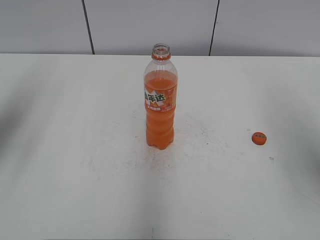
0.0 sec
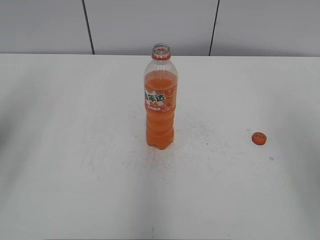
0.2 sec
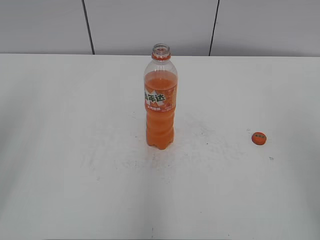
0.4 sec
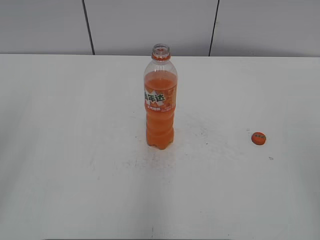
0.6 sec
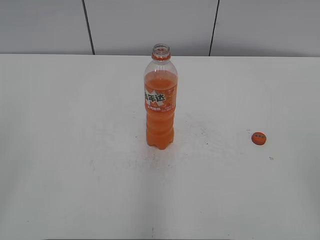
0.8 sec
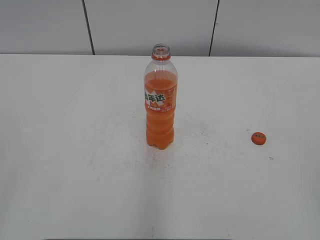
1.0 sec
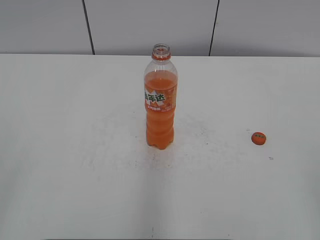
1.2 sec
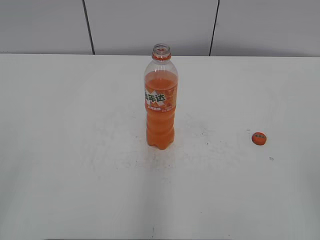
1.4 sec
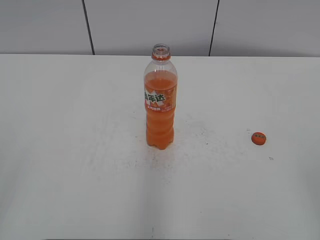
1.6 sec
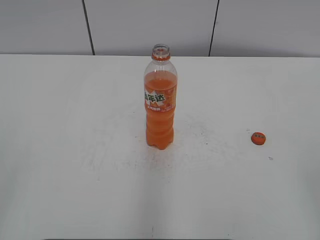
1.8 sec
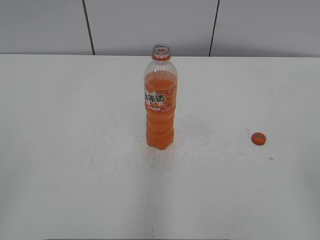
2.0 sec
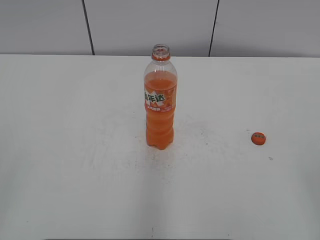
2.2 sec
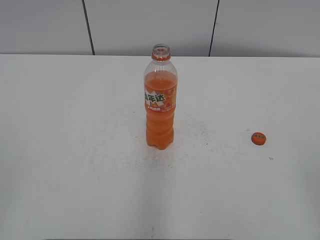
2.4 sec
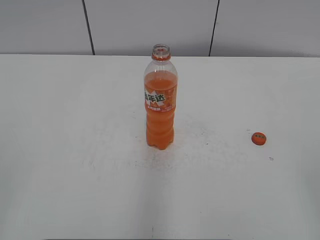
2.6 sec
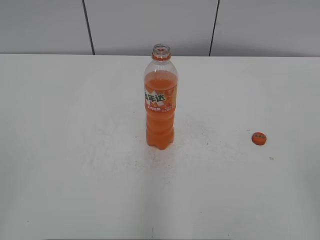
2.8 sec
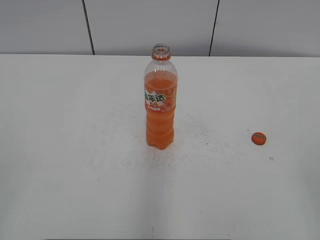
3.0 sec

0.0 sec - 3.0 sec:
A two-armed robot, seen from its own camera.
0.0 sec - 1.6 sec: The left gripper travels backward by about 30 cm.

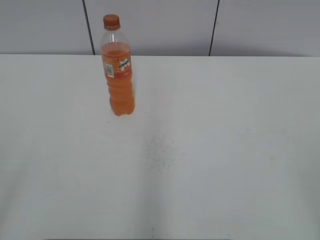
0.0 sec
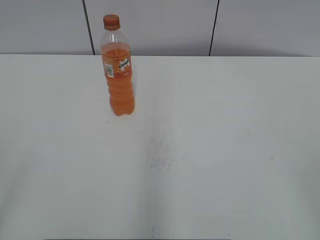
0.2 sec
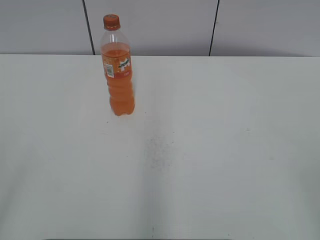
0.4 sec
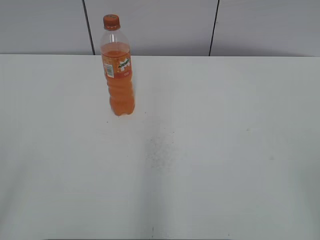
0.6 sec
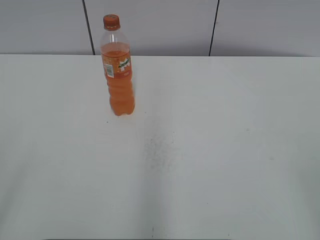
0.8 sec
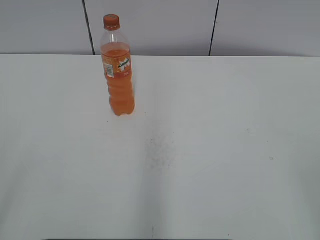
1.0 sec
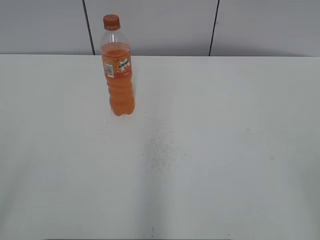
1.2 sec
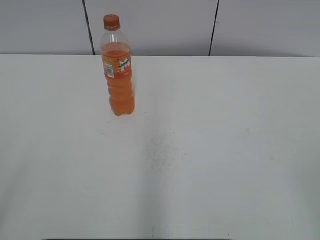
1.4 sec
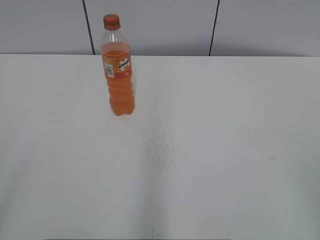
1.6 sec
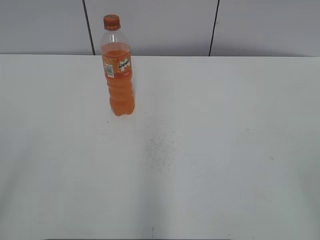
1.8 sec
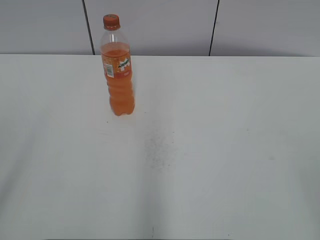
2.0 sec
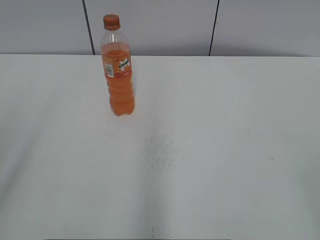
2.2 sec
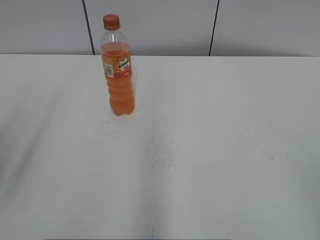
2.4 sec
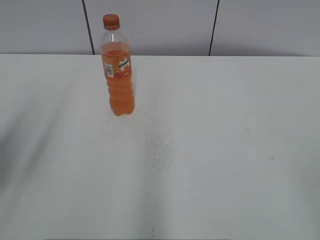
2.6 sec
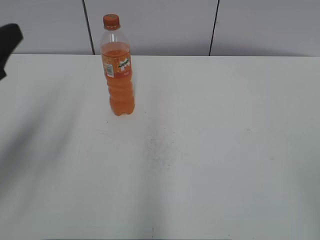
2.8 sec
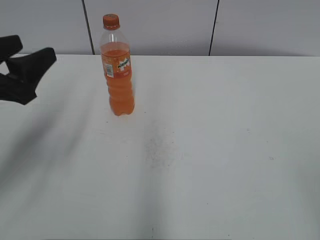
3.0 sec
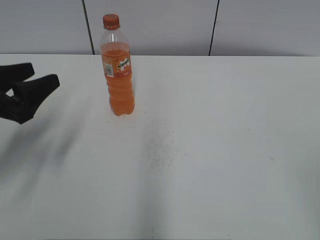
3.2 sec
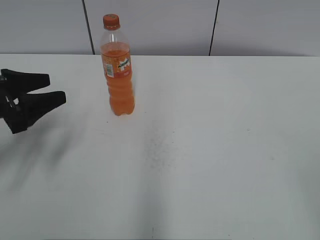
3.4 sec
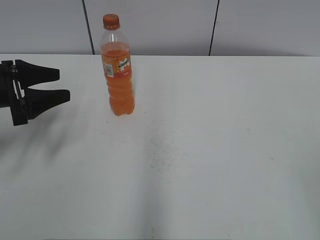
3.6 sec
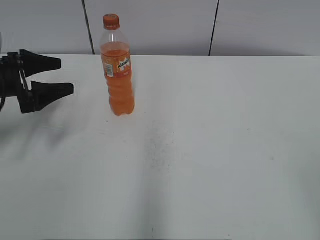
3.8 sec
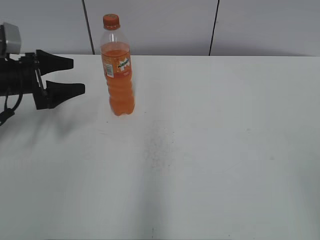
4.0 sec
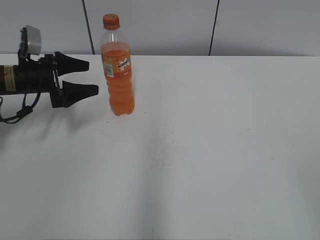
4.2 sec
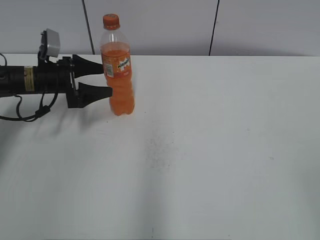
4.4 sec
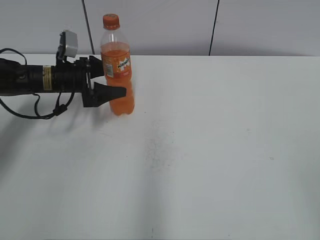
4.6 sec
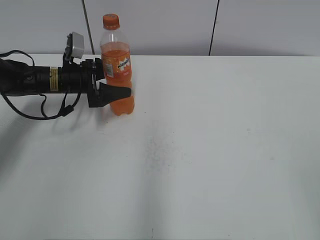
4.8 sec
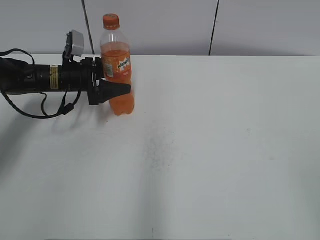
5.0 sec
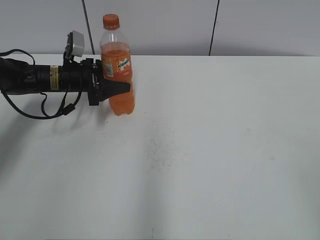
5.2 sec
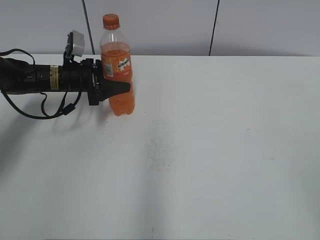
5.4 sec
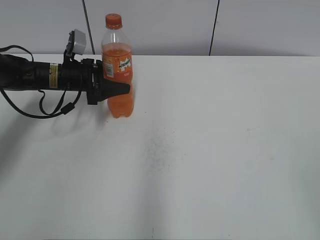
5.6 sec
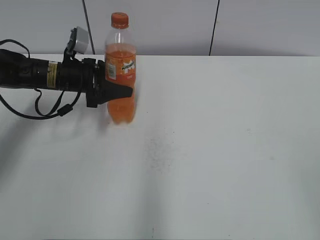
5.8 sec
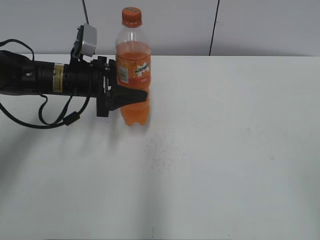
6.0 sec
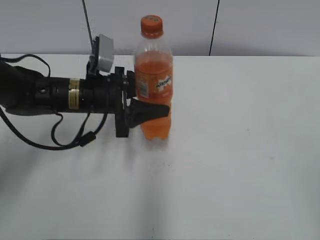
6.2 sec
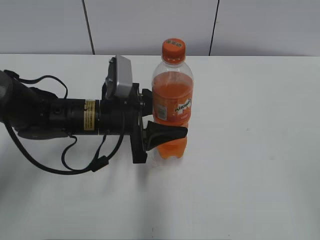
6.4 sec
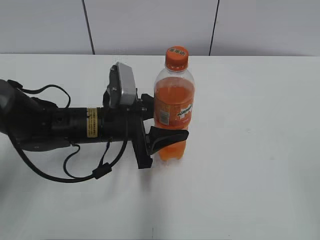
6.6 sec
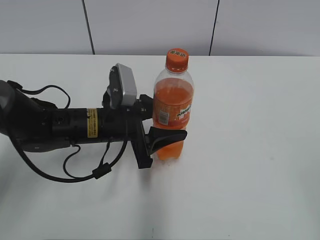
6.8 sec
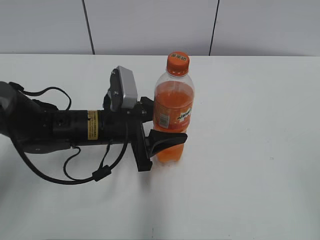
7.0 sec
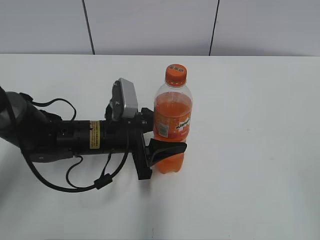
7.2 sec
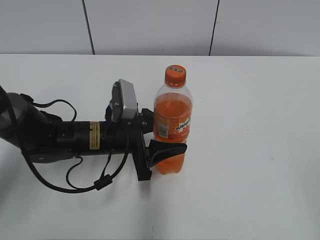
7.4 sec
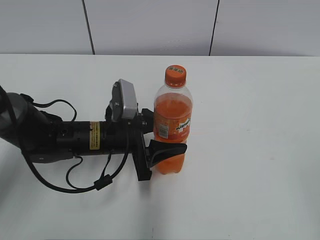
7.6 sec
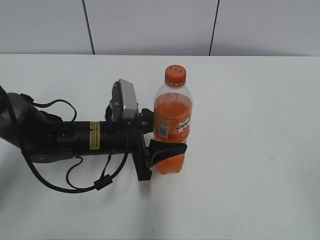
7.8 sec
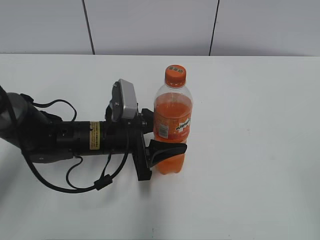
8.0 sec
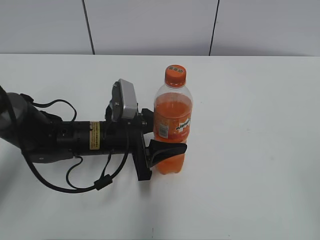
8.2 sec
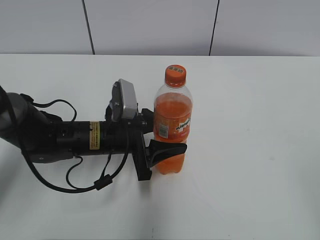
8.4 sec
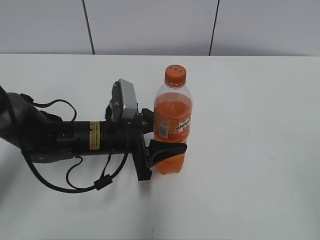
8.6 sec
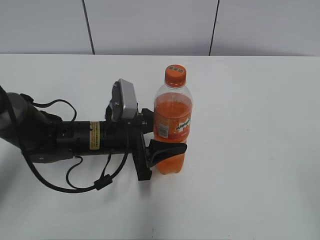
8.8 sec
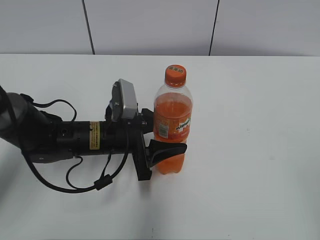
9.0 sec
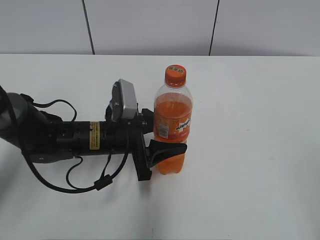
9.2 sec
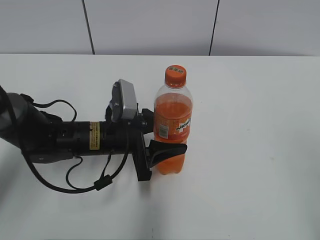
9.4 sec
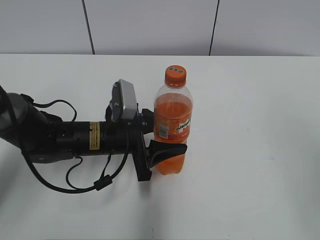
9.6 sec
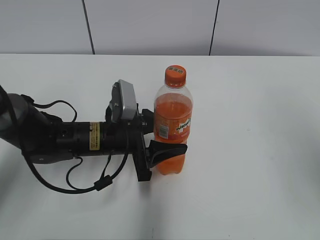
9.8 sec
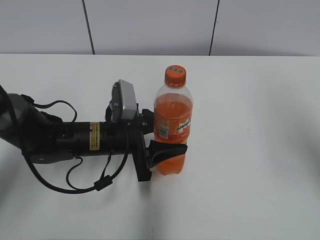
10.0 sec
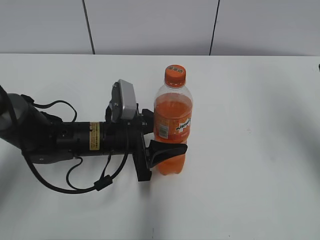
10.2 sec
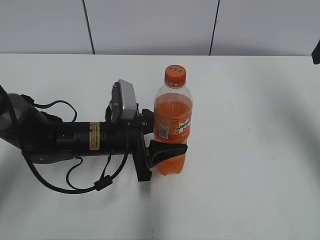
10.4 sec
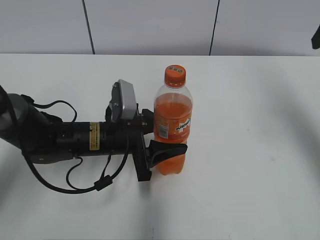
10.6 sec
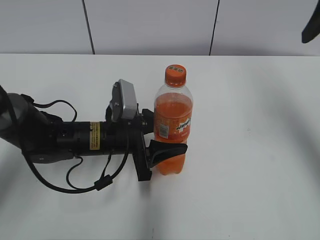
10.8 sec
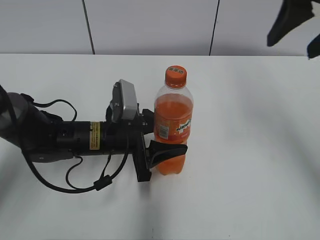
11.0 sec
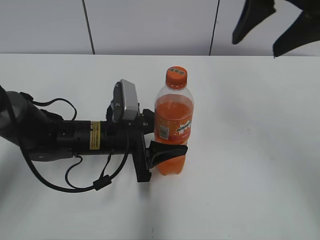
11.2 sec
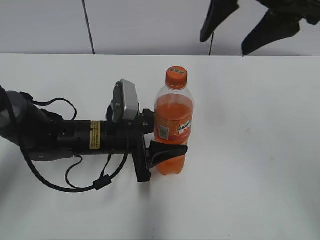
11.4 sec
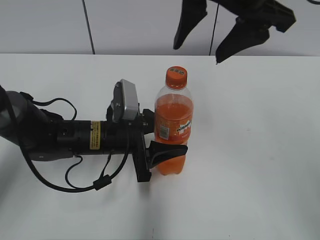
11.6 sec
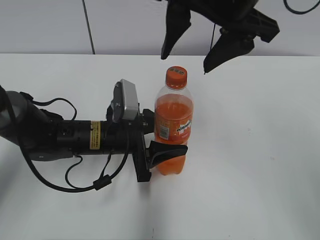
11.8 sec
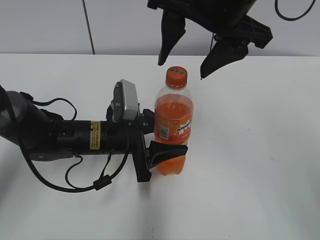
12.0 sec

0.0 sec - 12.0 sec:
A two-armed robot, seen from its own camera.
Step, 0.0 sec - 5.0 sec: Grab the Mirinda with the left hand.
Step, 5.2 sec - 7.8 sec: Move the Mirinda from left to right.
1.6 sec - 3.0 sec: The left gripper heads forward, covering about 25 cm.
3.0 sec - 4.4 sec: The left gripper heads forward and downward, covering about 25 cm, and opens its fingers.
4.4 sec - 6.0 sec: The left gripper is displaced to the right by roughly 10 cm, and closes up.
6.0 sec - 7.6 sec: The left gripper is displaced backward, to the right and downward by about 15 cm.
7.6 sec - 9.0 sec: Both grippers stay about where they are.
9.0 sec - 10.4 sec: The right gripper is displaced forward by some 30 cm.
10.4 sec - 12.0 sec: The right gripper travels to the left by about 20 cm.

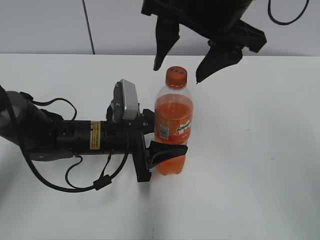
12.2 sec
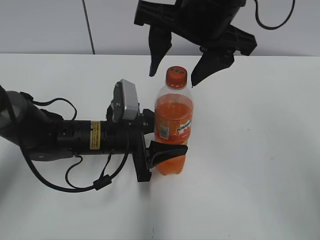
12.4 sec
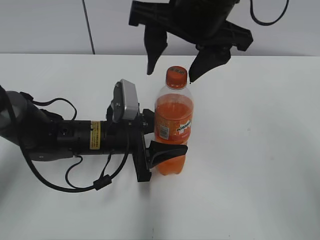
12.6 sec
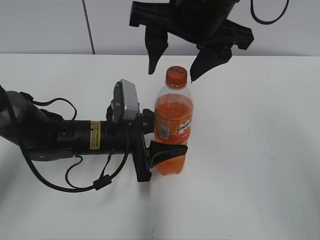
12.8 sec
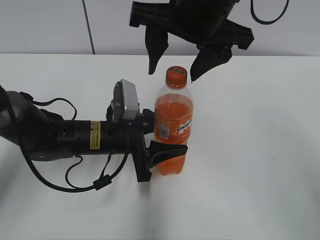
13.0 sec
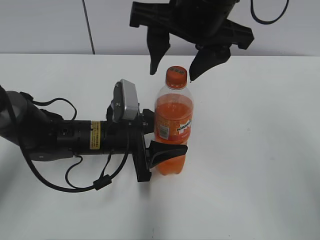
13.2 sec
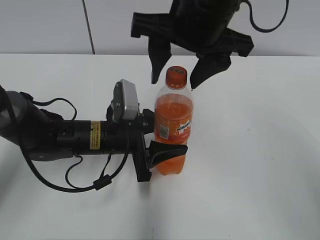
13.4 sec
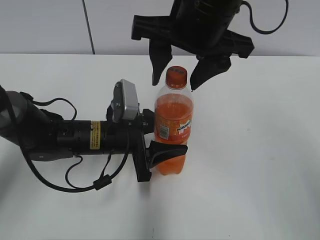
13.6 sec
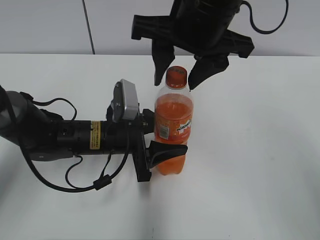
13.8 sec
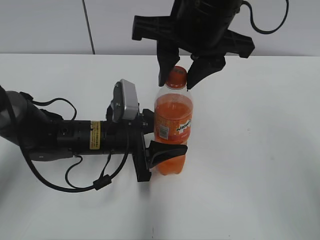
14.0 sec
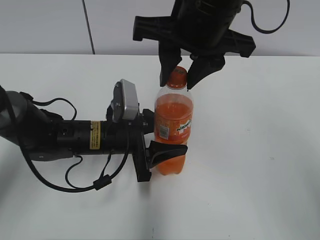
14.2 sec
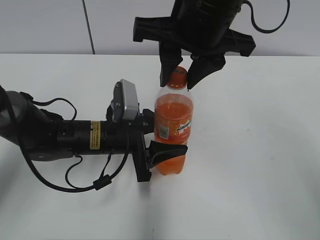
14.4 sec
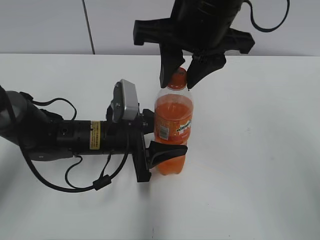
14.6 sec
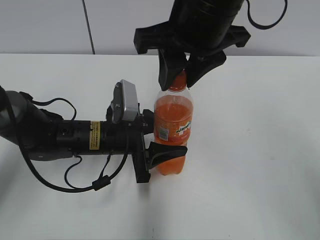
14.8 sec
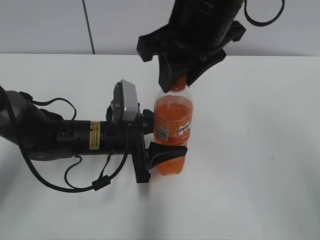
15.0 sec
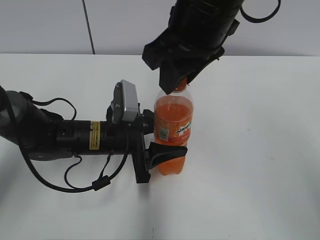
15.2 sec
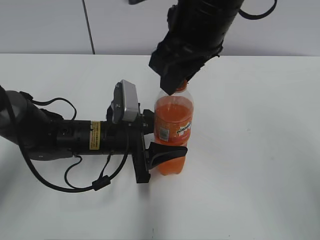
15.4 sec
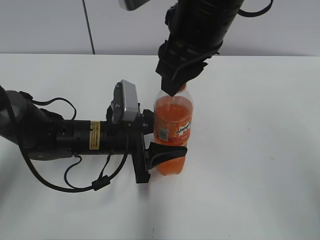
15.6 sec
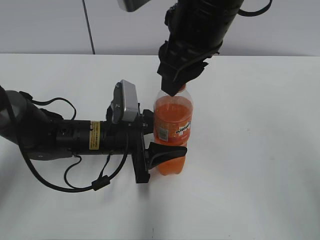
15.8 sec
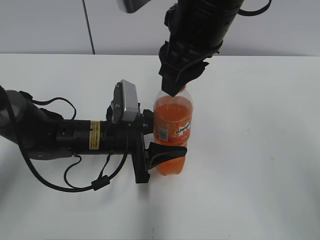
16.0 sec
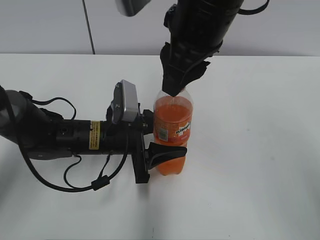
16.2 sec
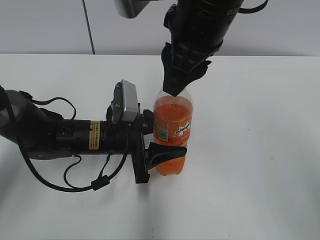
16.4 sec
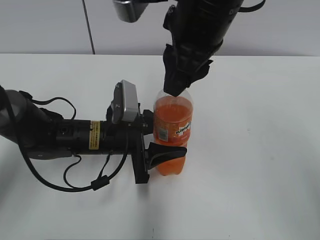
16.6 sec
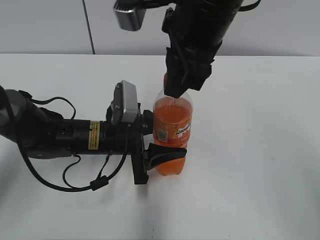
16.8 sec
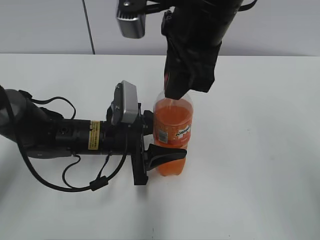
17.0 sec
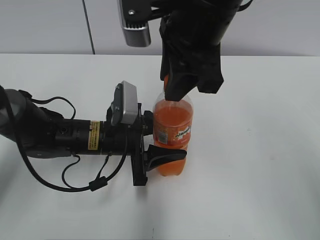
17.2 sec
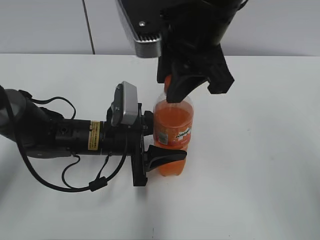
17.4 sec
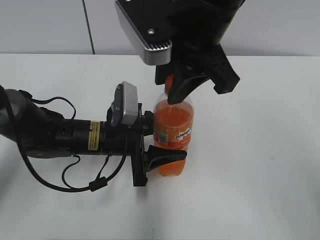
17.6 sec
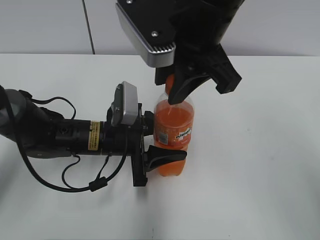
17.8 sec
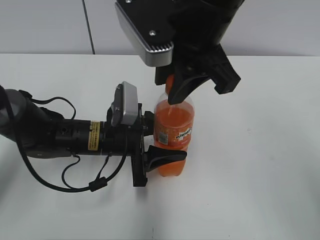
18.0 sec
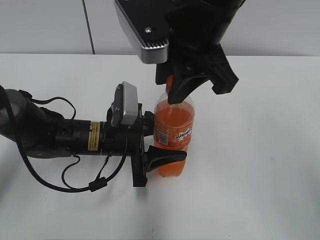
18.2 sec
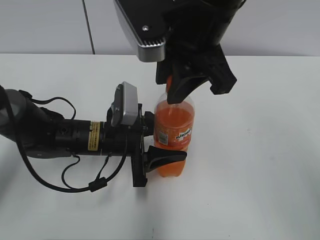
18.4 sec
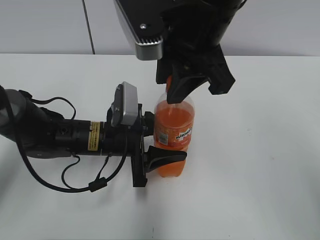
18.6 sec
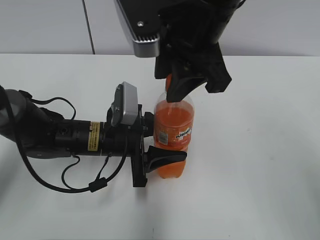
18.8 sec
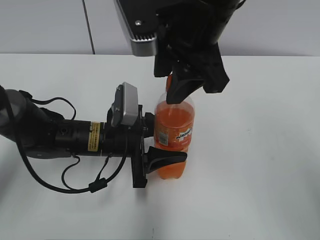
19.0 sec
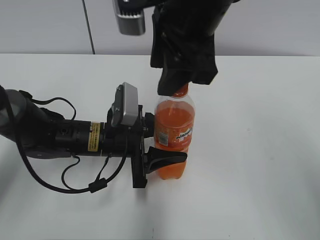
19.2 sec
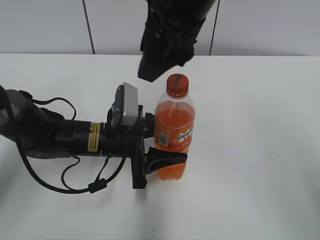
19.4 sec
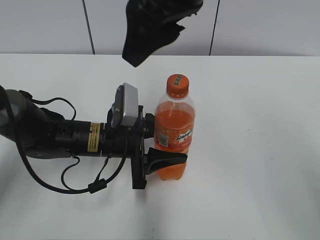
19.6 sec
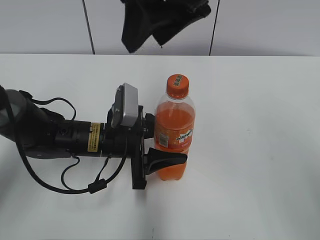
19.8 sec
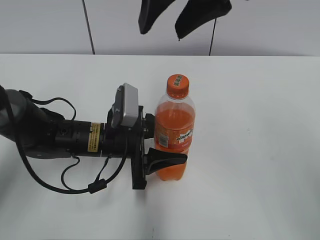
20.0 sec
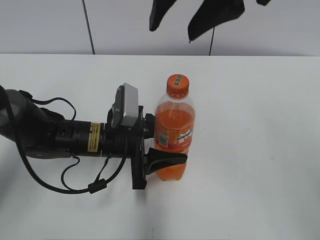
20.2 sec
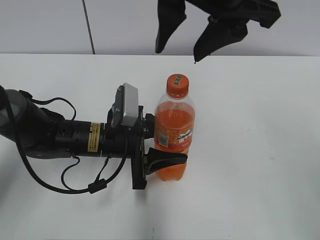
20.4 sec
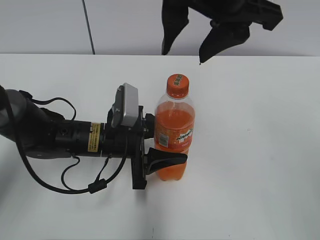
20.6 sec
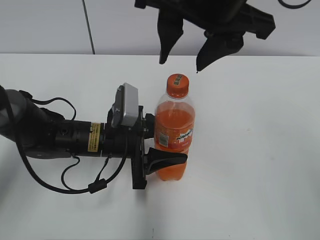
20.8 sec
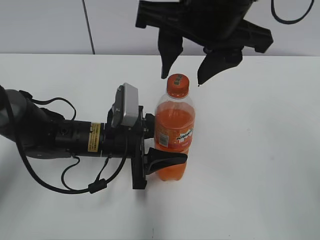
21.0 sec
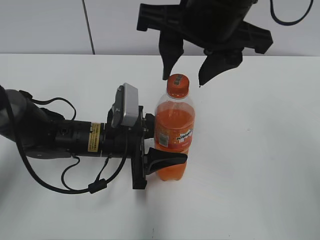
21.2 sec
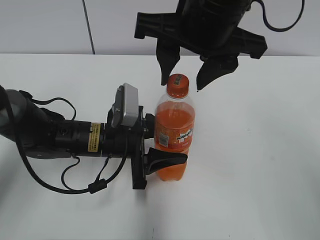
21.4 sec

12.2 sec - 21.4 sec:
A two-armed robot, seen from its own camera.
12.2 sec - 13.8 sec: The grippers move only a little.
13.8 sec - 15.2 sec: The right gripper closes its fingers.
18.4 sec - 19.8 sec: The right gripper shifts approximately 5 cm upward, and opens up.
19.8 sec - 21.4 sec: The right gripper moves about 5 cm.
